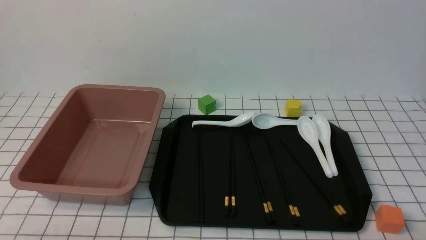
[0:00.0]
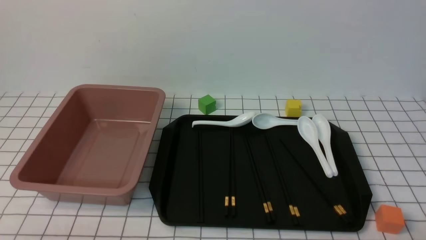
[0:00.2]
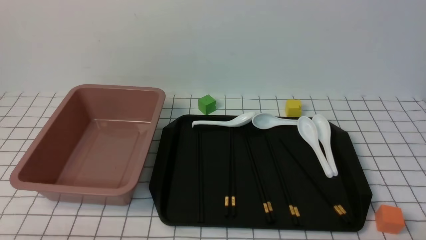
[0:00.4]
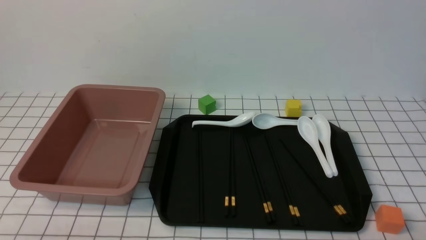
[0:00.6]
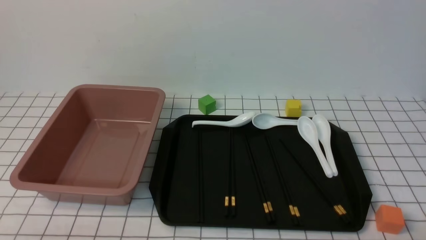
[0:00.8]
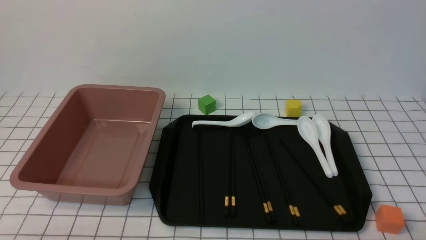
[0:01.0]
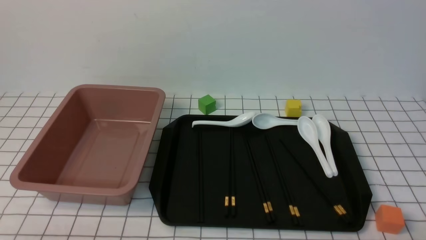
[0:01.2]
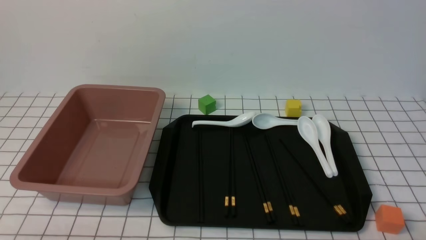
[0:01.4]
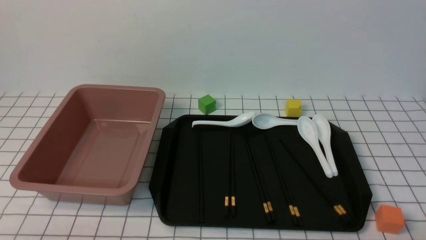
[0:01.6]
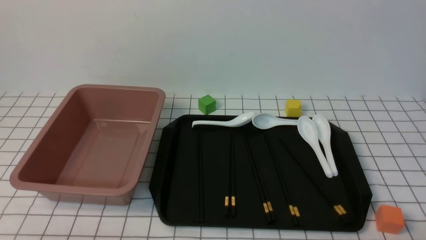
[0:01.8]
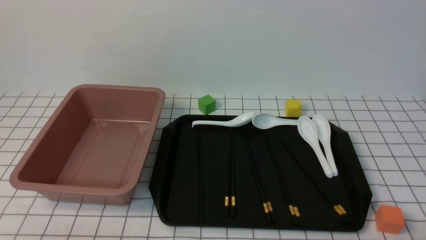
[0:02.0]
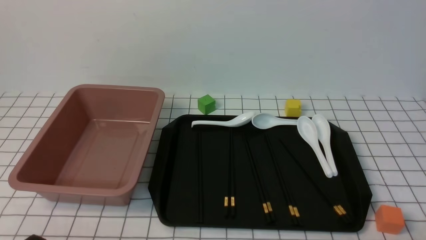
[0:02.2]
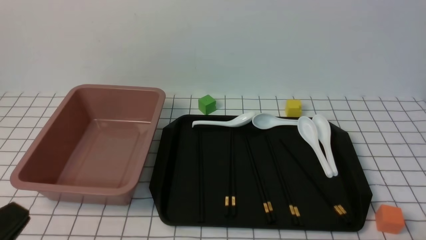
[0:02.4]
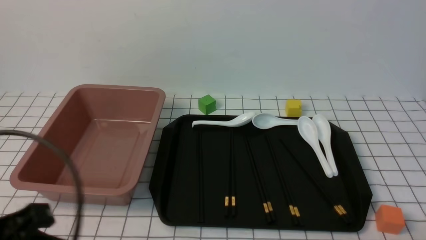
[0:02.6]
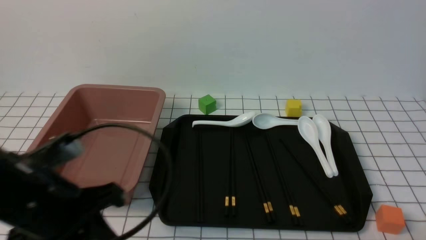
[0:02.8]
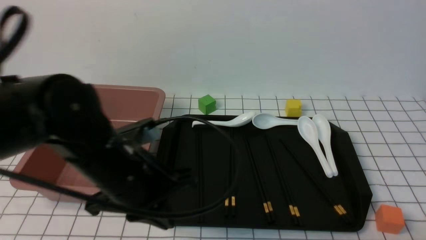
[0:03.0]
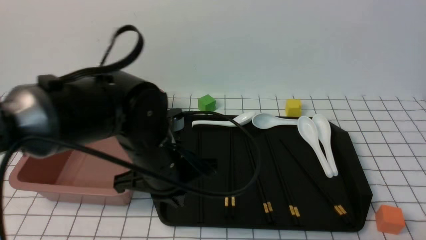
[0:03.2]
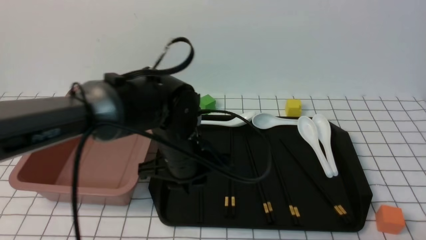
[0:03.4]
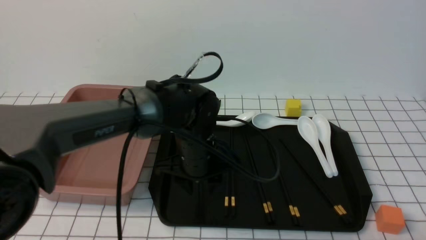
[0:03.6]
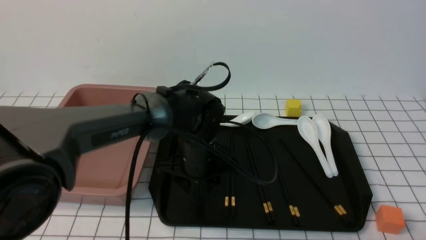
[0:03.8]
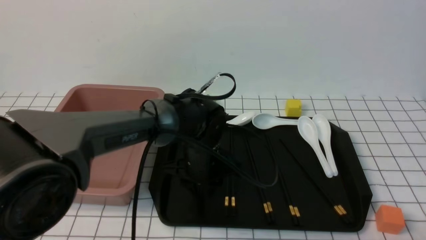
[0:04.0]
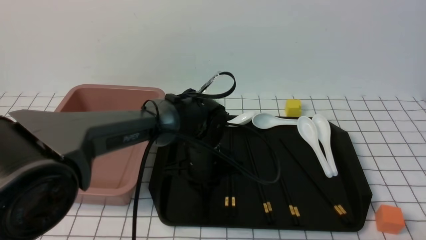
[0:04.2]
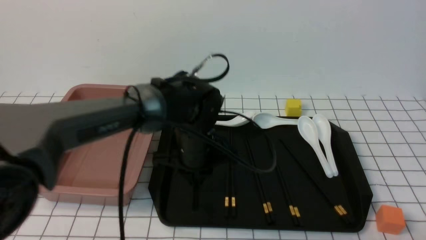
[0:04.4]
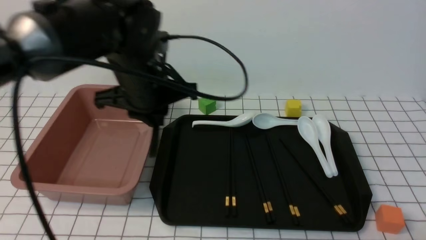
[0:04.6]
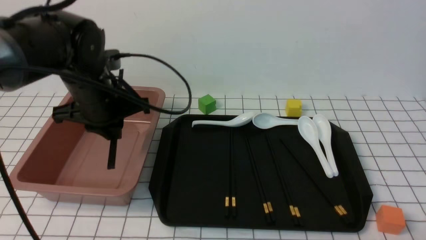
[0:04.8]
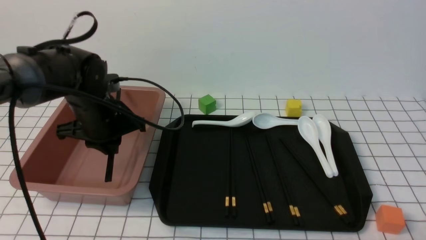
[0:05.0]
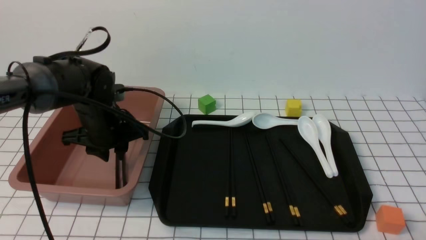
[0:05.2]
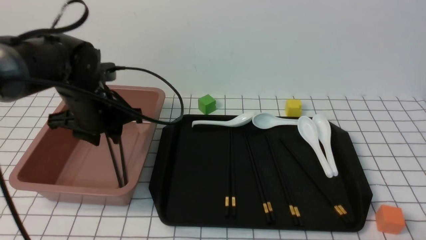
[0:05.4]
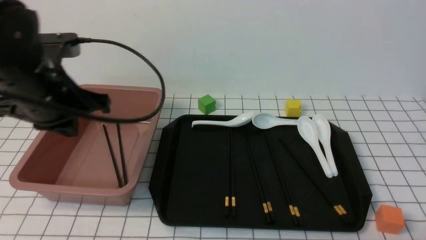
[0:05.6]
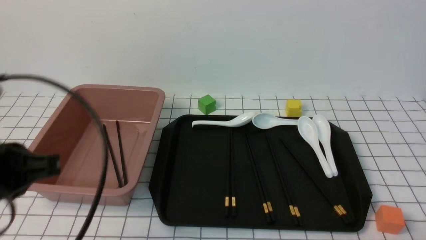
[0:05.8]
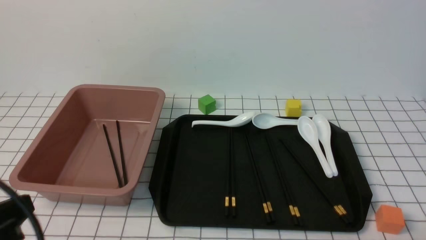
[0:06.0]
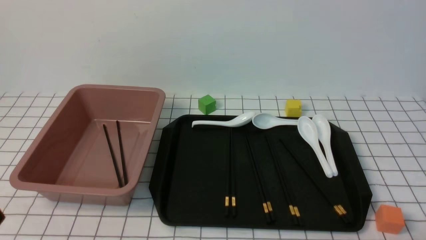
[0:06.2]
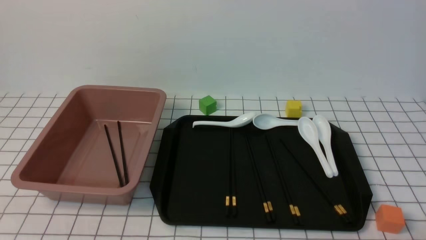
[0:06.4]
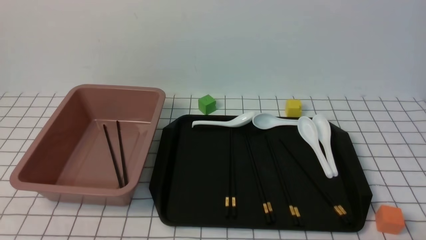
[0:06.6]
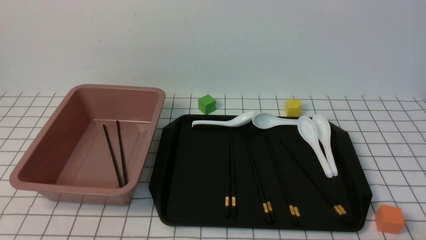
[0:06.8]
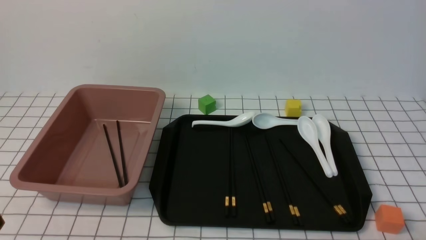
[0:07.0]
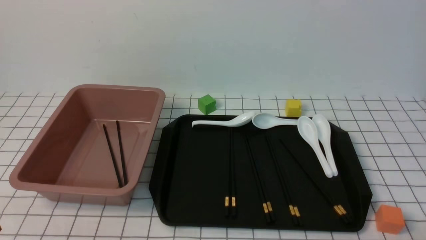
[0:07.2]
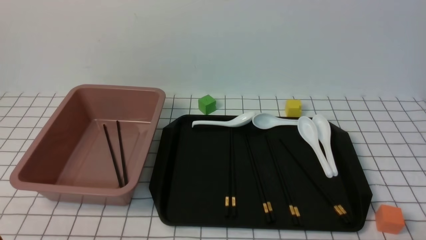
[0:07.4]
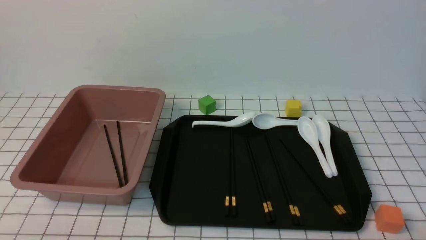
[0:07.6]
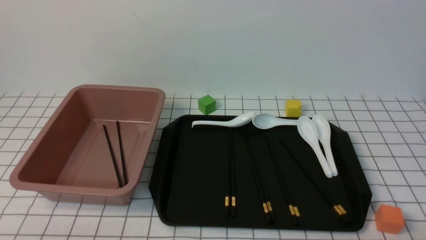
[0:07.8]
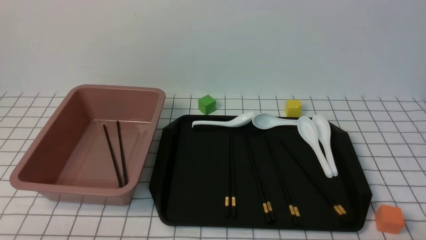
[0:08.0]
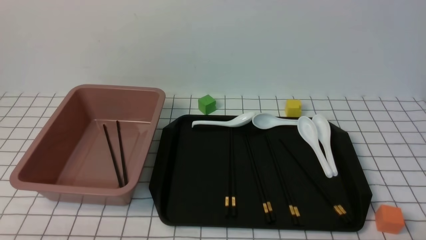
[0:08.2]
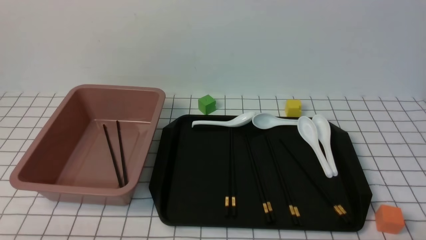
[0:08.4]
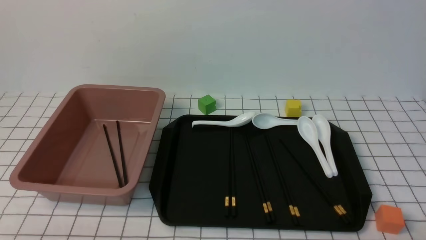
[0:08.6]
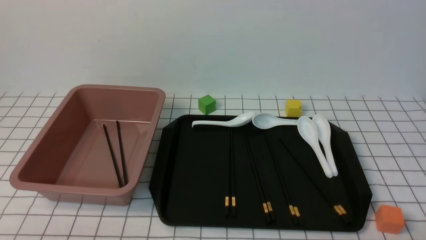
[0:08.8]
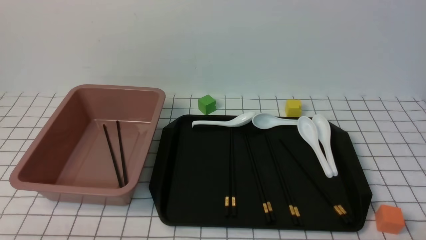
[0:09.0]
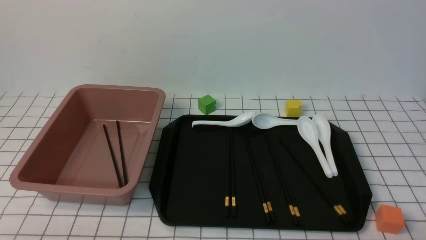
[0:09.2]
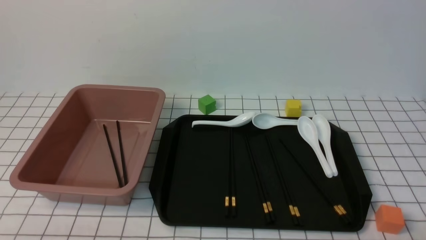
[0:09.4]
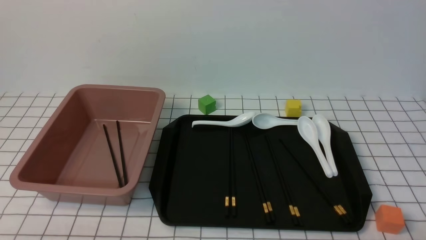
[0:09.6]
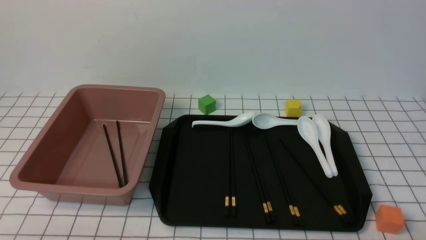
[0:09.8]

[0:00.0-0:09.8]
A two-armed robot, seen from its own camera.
Step, 0:00.0 to 0:04.2: use the left arm to grab a pair of chopsticks.
Step, 0:04.4 to 0:05.4: use the left arm to put the chopsticks into the lunch box.
0:00.0 to 0:01.4: The two grippers keep their place.
0:01.4 to 0:02.8: The left gripper moves forward, upward and to the right, roughly 20 cm, and closes its fingers.
0:02.8 to 0:04.2: The left gripper travels forward, to the right and downward by approximately 25 cm, and opens its fingers.
0:04.2 to 0:05.6: The left gripper travels to the left, upward and backward by approximately 25 cm.
0:05.6 to 0:07.0: The left gripper shifts some 20 cm backward.
0:08.4 to 0:09.8: Both grippers stay put.
